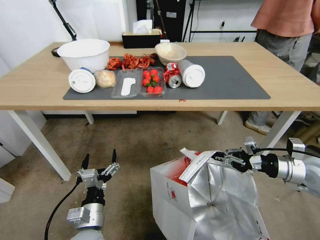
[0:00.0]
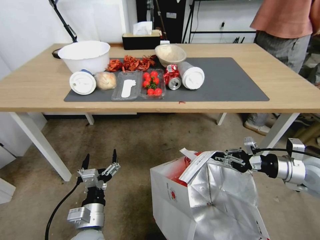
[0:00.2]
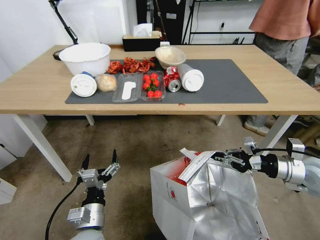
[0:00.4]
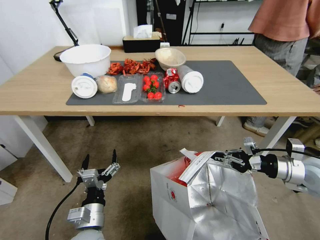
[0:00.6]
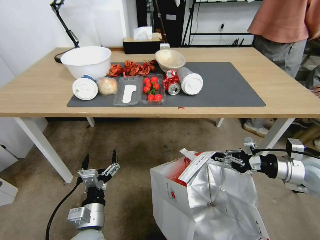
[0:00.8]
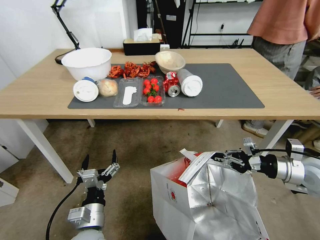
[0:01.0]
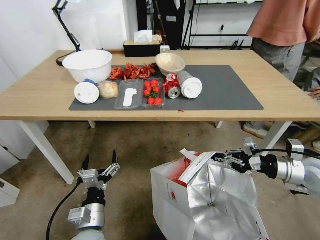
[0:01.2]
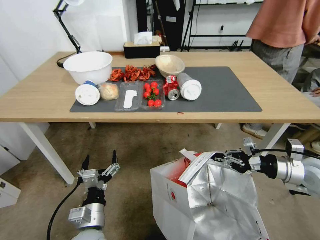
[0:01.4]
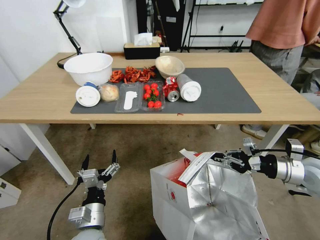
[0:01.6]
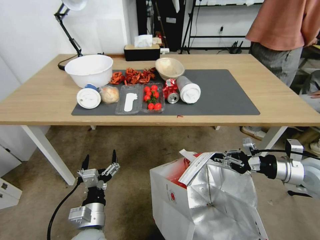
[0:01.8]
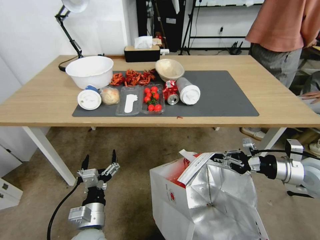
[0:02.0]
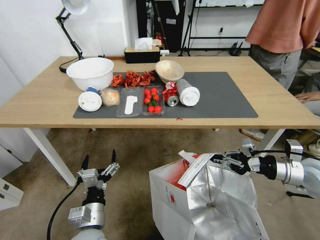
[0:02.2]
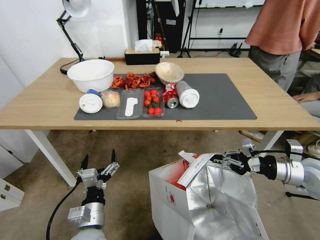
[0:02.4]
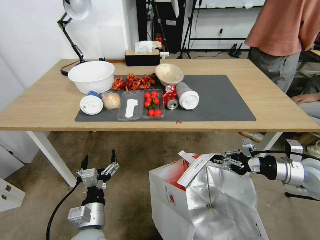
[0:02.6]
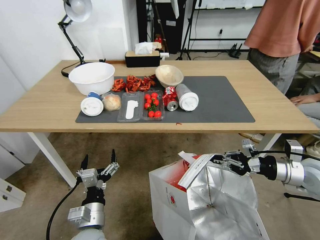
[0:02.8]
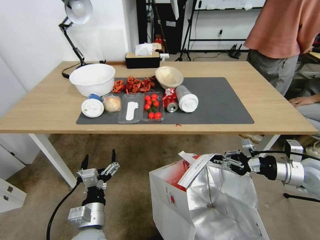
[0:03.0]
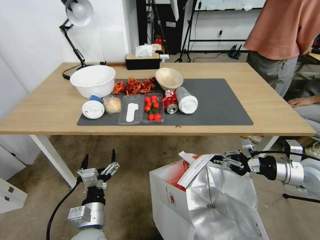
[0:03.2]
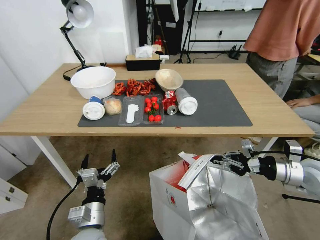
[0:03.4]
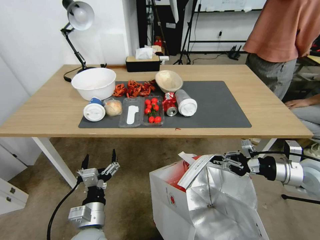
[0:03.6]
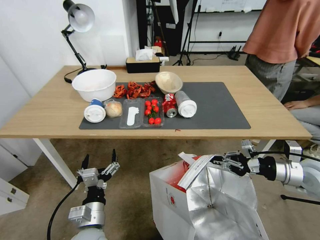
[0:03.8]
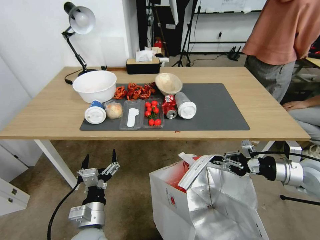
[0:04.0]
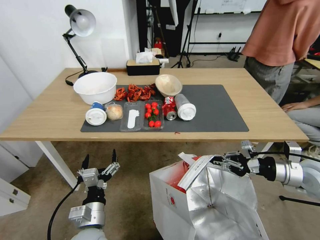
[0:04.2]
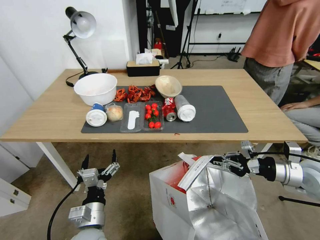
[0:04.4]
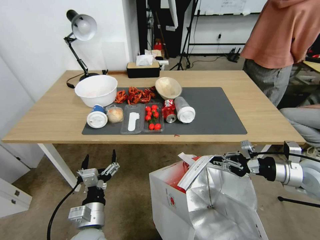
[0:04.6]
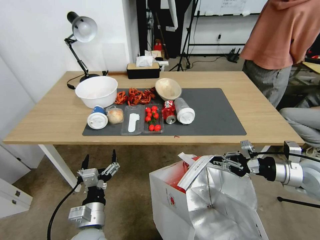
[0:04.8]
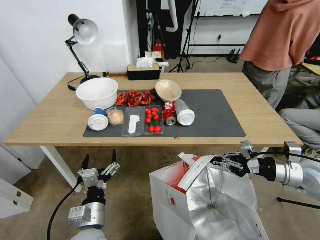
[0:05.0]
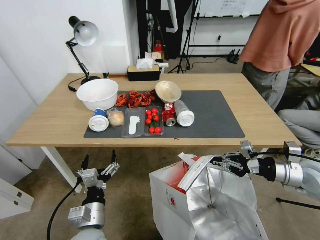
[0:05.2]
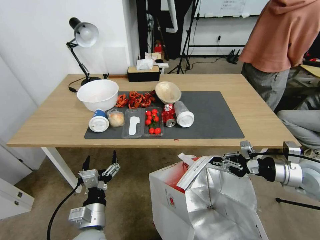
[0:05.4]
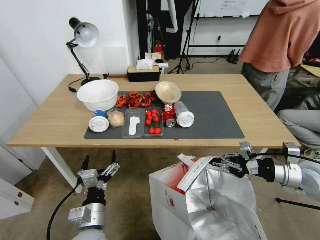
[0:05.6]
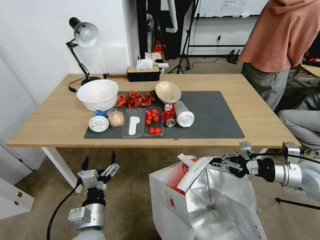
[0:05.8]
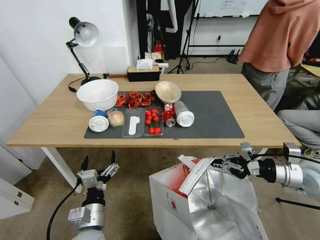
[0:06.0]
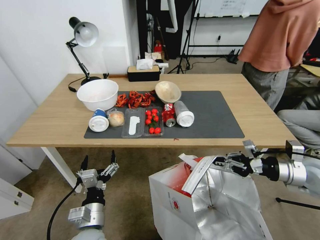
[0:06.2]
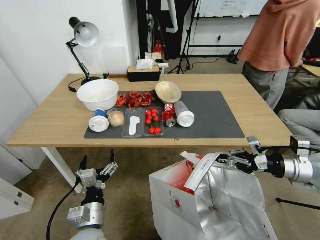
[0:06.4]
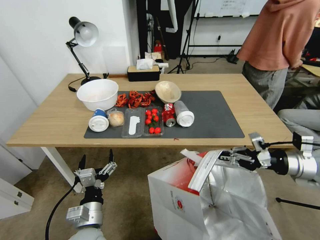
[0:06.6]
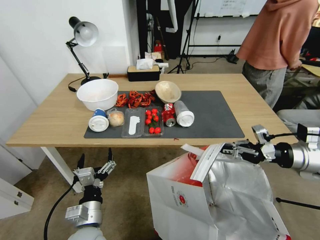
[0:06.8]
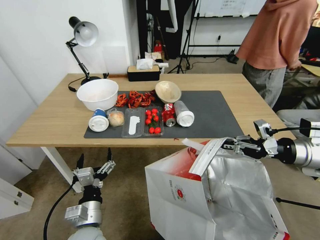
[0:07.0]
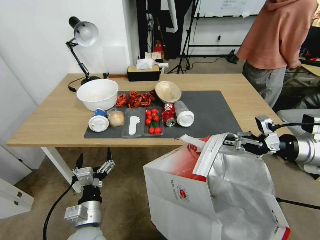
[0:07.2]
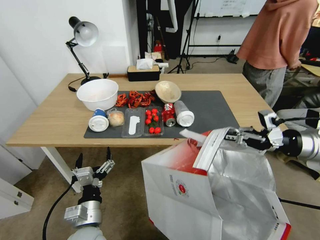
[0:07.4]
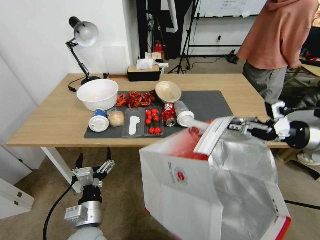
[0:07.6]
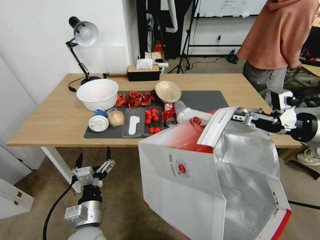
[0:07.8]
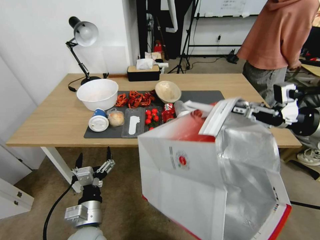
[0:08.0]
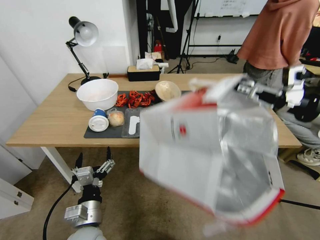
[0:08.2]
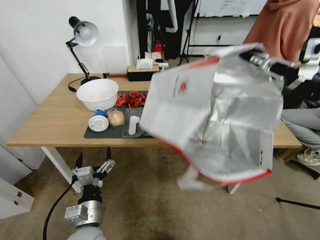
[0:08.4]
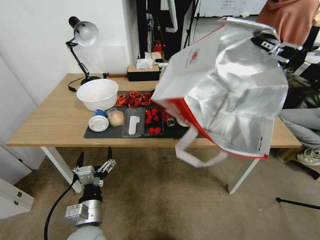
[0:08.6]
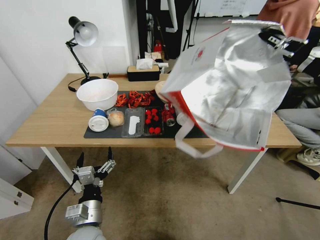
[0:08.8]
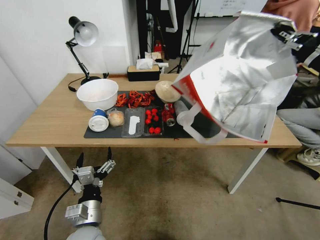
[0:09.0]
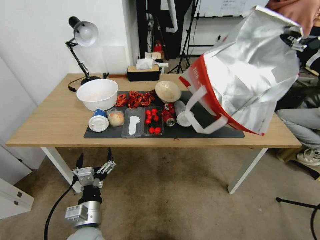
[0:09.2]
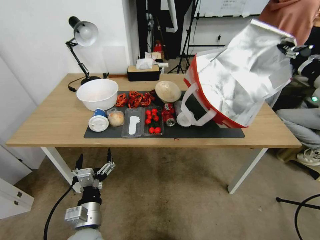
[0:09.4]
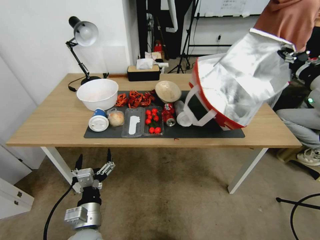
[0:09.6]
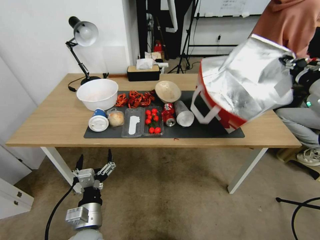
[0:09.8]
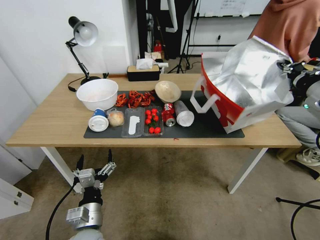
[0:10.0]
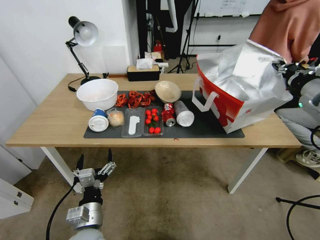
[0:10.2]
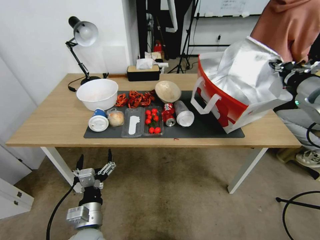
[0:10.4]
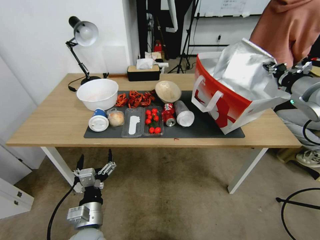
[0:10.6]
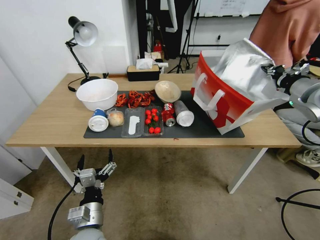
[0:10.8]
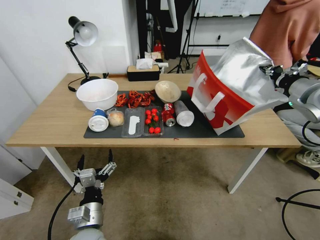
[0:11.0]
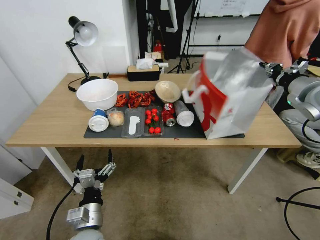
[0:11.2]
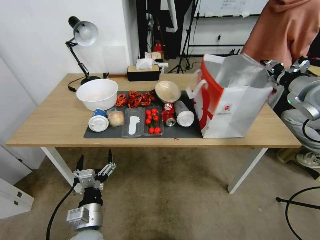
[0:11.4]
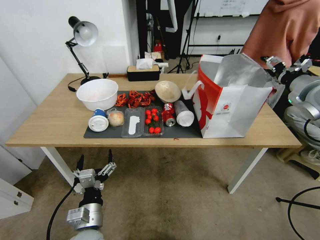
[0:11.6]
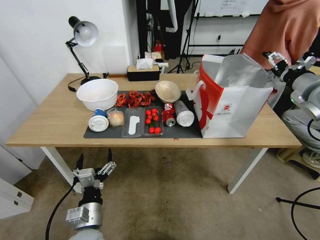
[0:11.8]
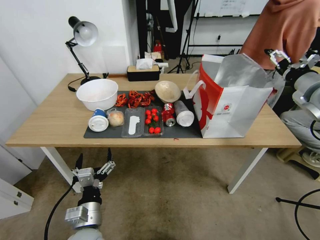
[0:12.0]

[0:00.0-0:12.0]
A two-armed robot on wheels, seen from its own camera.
Task of the whole recording: Pick up the food delivery bag from the floor and place it on the table.
0:06.0 to 0:07.6: The right gripper moves upward, some 10 cm.
0:07.6 to 0:09.0: The right gripper heads upward, covering roughly 10 cm.
0:09.0 to 0:10.4: The right gripper is displaced forward and downward by some 10 cm.
0:10.4 to 0:12.0: The right gripper opens up.

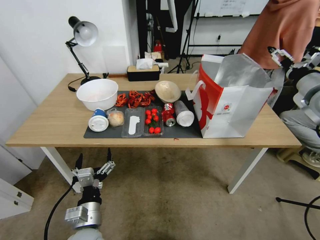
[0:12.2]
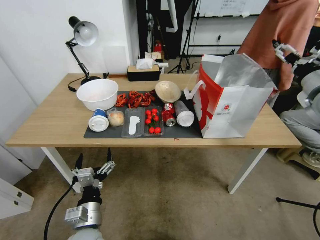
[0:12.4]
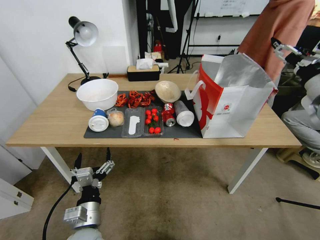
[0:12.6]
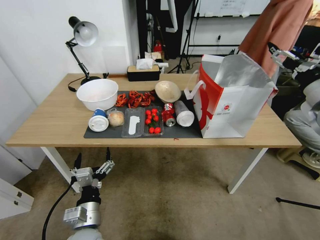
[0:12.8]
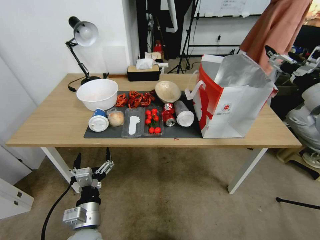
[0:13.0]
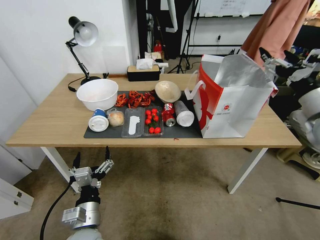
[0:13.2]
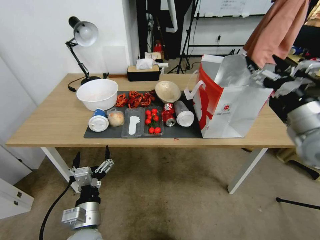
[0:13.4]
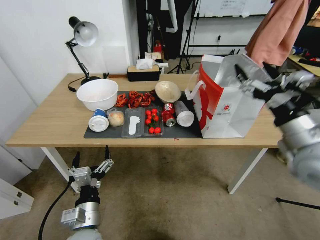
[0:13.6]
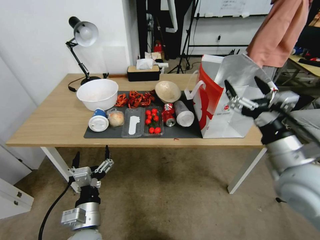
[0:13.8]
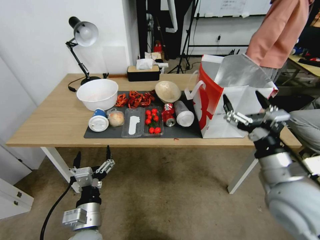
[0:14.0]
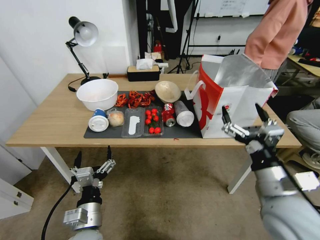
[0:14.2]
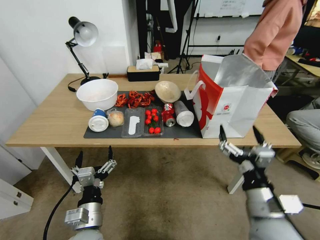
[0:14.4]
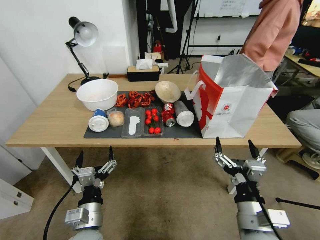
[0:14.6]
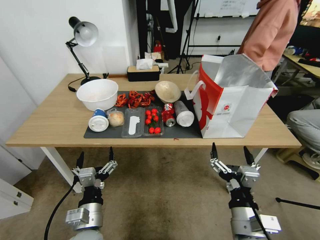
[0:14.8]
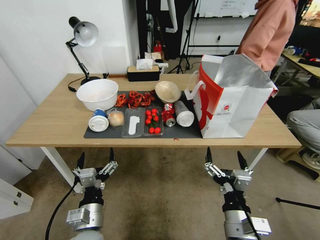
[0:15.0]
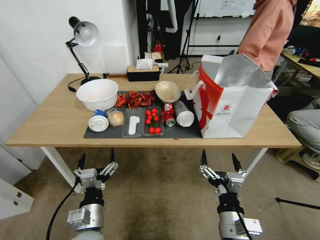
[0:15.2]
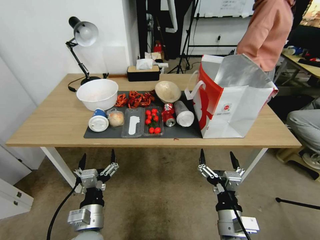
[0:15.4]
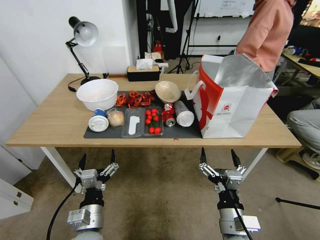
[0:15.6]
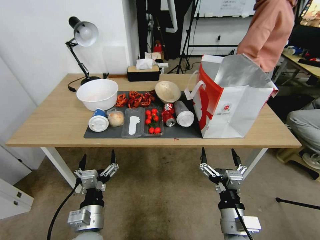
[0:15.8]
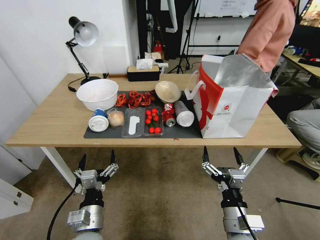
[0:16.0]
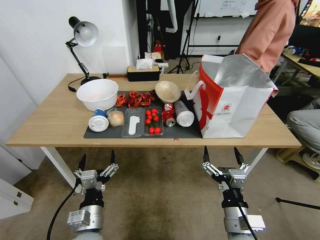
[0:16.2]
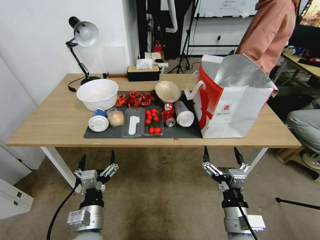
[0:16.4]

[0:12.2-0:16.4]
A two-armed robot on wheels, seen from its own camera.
Task of the whole recording: Pick up the food delivery bag from the floor and place it on the table.
0:12.2 to 0:13.6: The right gripper shifts some 15 cm backward and to the left.
0:13.6 to 0:15.0: The right gripper travels downward, backward and to the left by roughly 30 cm.
0:15.0 to 0:16.4: The grippers stay close to where they were, moving slightly.
